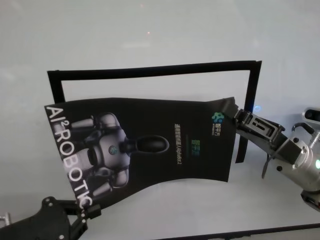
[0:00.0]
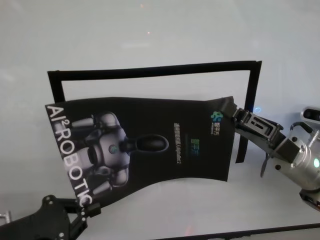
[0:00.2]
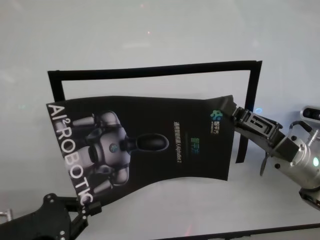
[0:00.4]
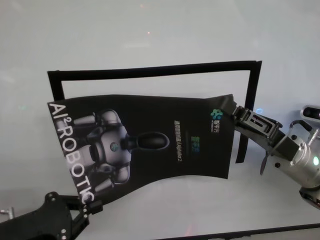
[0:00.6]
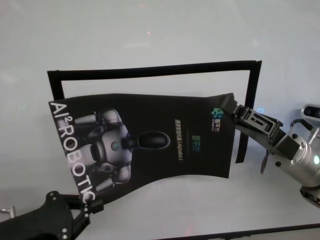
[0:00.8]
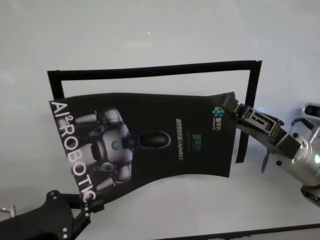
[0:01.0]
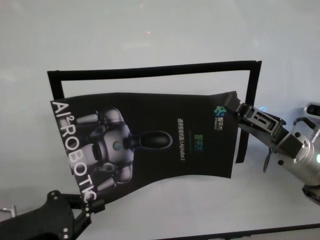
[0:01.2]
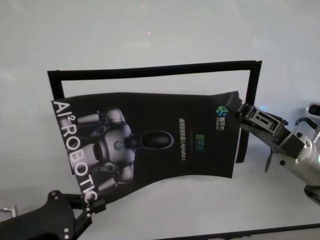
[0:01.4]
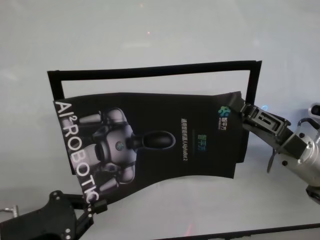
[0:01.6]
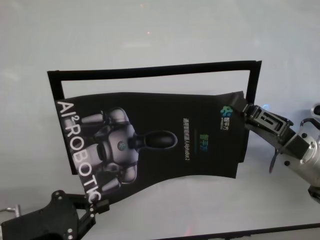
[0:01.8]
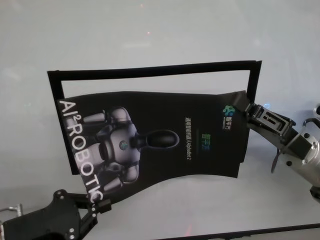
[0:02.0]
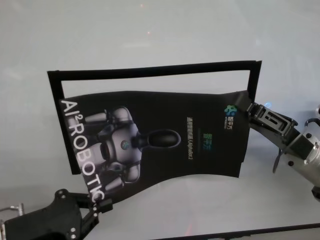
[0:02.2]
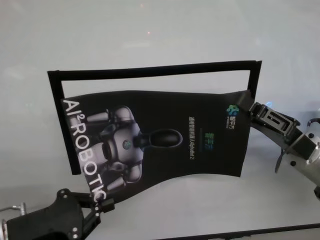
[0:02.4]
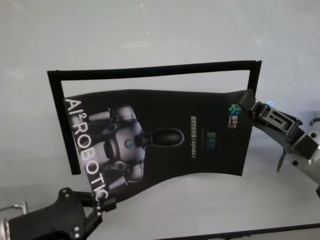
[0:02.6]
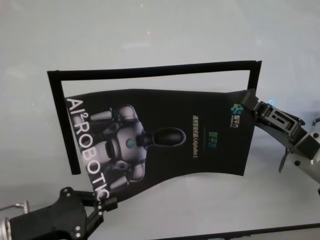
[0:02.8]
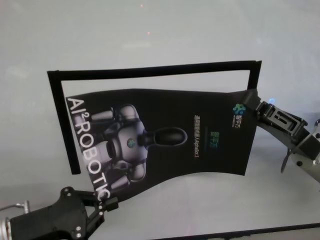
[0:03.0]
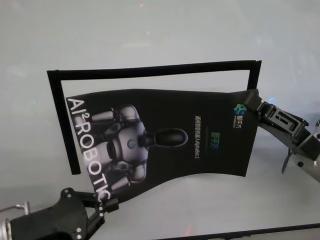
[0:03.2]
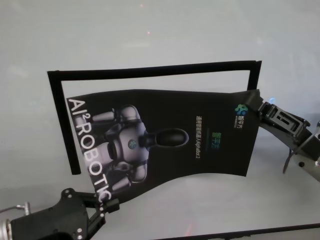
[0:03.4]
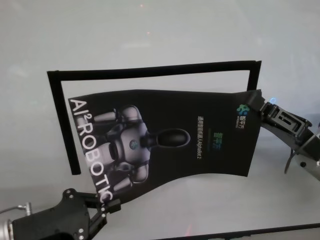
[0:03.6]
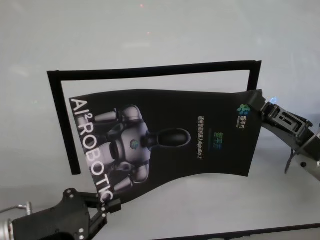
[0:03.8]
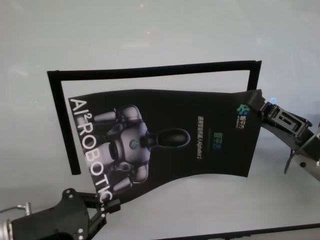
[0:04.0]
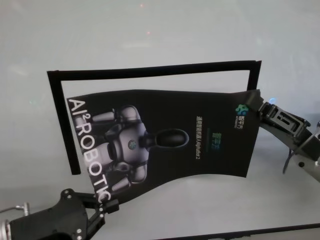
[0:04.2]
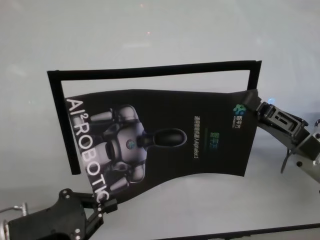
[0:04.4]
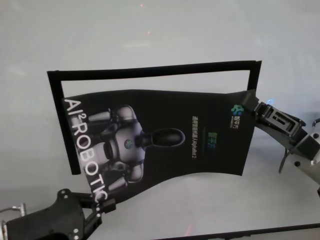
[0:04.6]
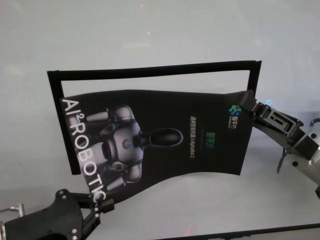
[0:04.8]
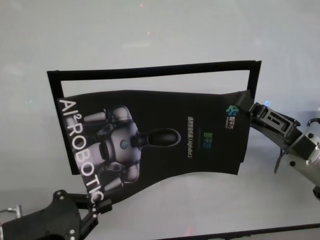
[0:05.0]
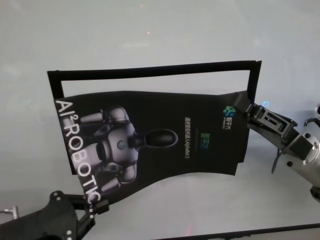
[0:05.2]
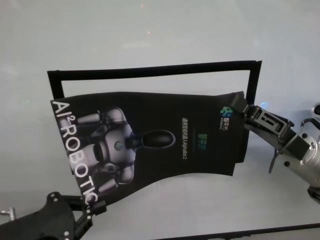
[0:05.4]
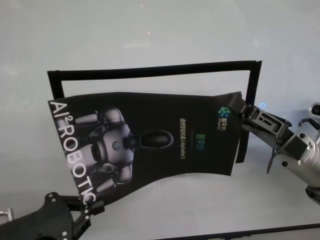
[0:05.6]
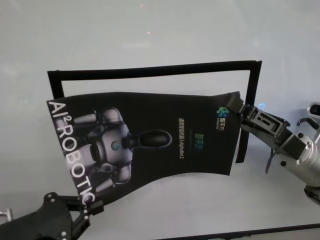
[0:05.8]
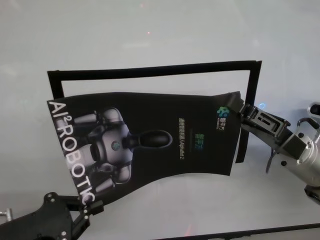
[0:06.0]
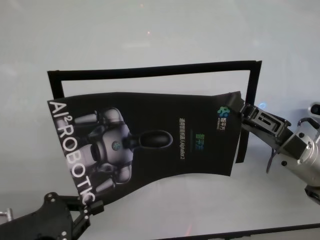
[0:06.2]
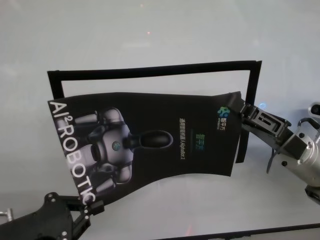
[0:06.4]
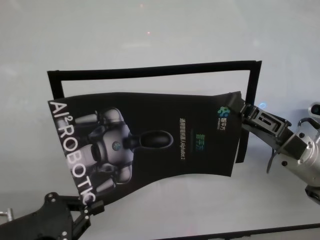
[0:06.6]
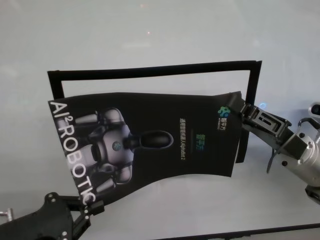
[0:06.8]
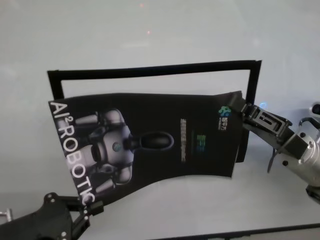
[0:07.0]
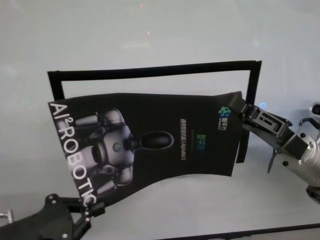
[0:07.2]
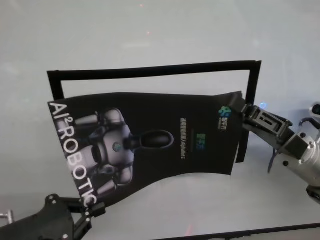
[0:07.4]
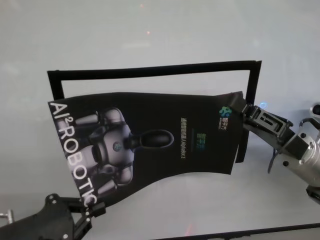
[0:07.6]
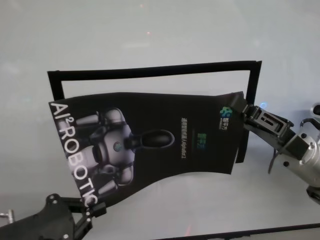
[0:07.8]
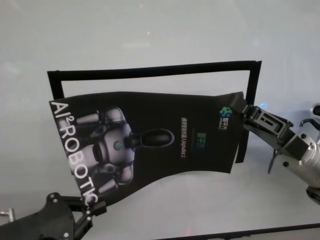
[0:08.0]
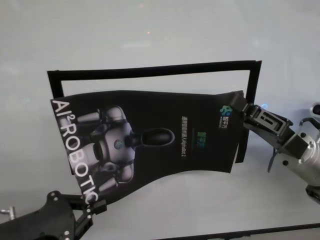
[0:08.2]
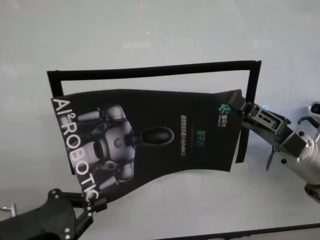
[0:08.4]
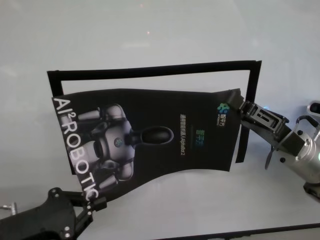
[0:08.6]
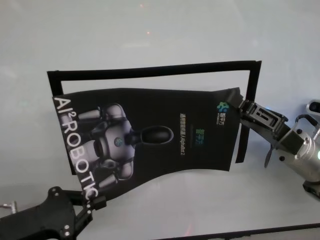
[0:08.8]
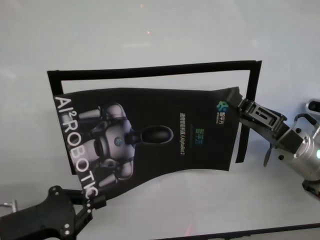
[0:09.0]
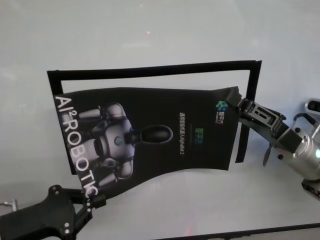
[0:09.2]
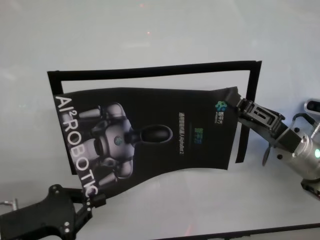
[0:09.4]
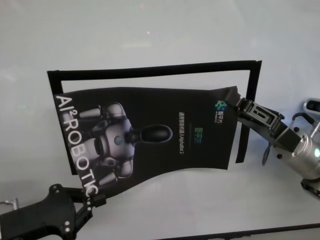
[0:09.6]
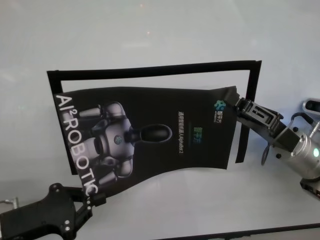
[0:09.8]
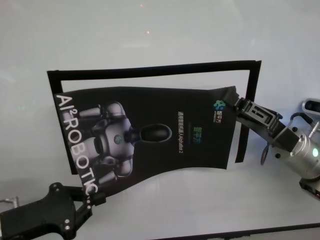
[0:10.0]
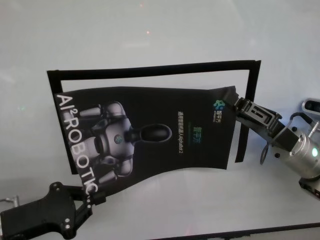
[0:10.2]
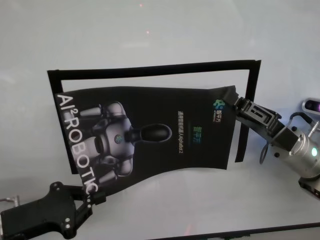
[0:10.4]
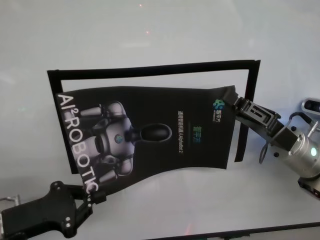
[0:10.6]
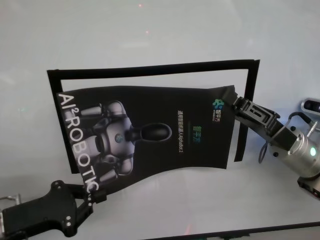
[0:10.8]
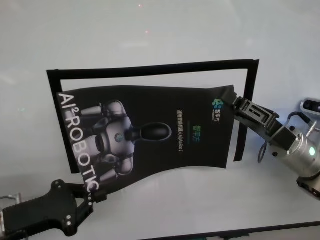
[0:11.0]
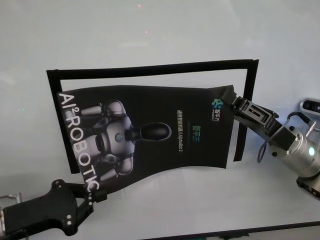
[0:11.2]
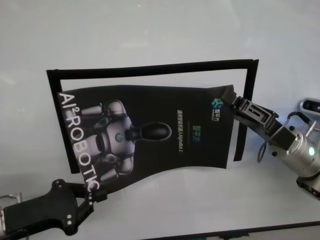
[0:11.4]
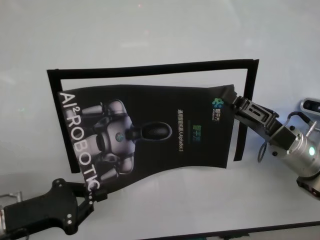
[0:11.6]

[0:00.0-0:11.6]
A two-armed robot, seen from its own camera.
Task of the whole recording: stick the poster on the table by hand.
Step, 0:00.0 to 0:06.6: Stick the advertisement in the top-right corner area with both grippers.

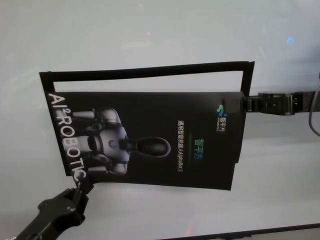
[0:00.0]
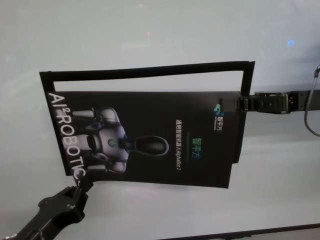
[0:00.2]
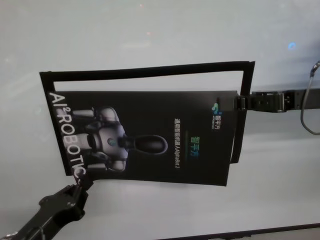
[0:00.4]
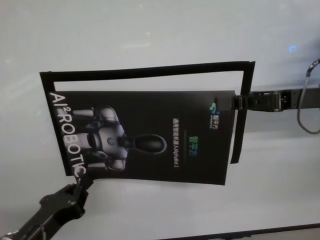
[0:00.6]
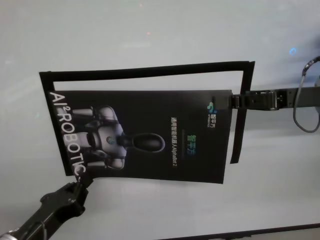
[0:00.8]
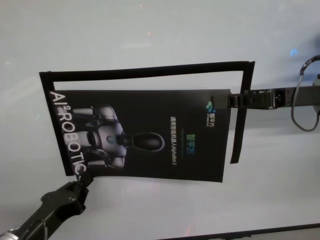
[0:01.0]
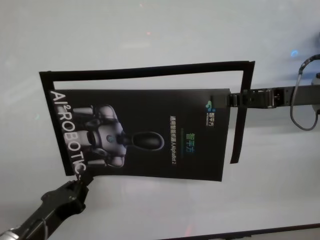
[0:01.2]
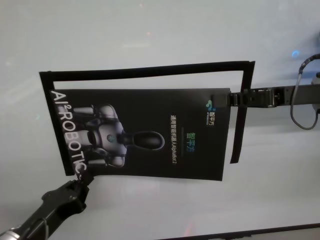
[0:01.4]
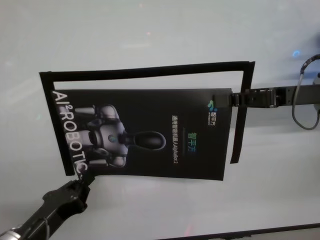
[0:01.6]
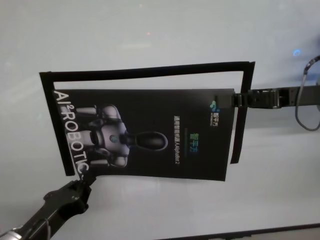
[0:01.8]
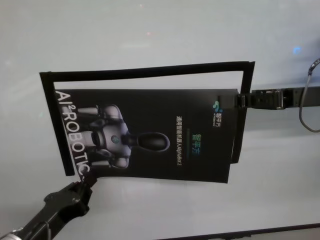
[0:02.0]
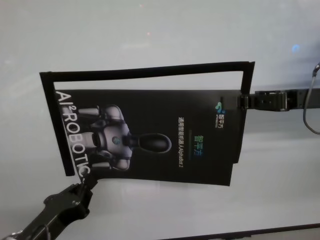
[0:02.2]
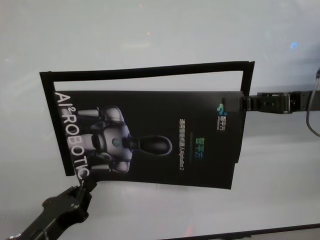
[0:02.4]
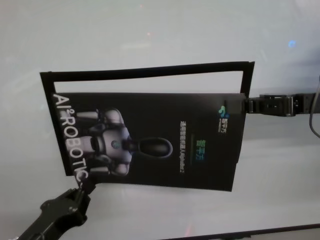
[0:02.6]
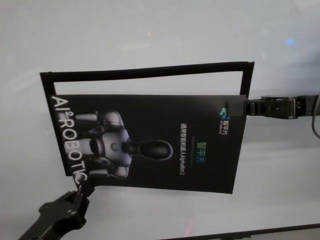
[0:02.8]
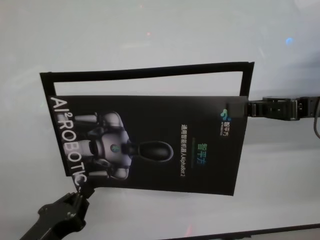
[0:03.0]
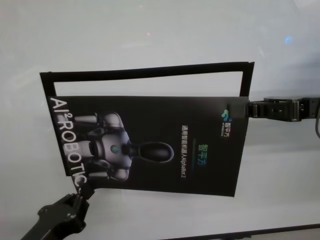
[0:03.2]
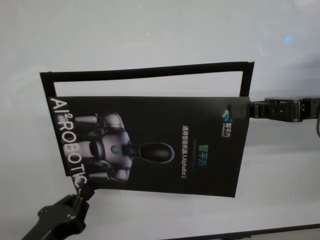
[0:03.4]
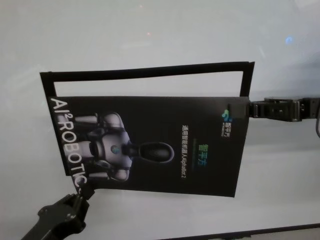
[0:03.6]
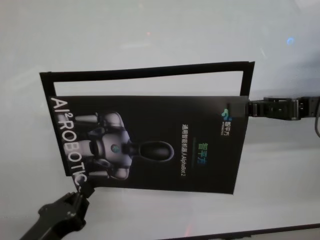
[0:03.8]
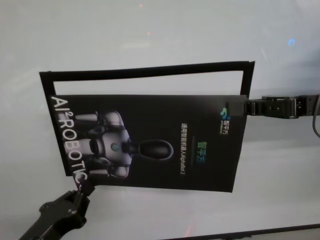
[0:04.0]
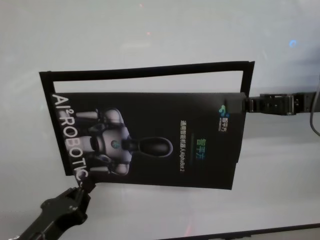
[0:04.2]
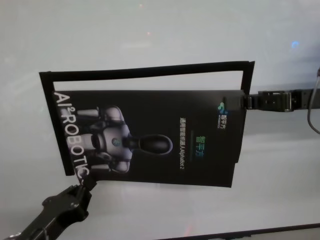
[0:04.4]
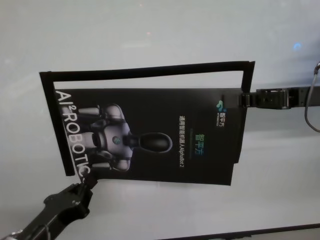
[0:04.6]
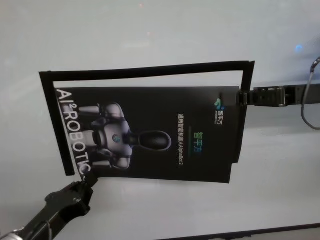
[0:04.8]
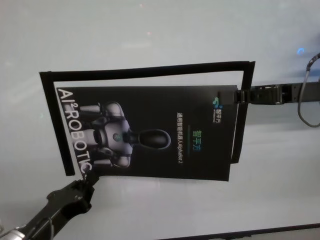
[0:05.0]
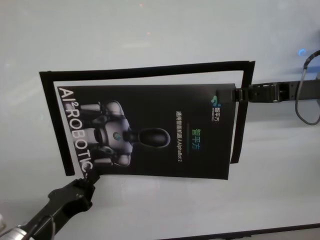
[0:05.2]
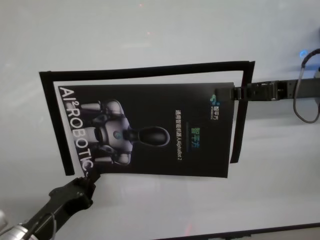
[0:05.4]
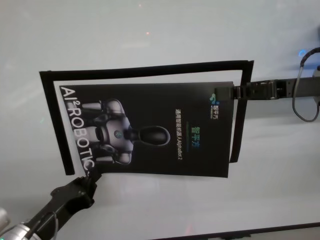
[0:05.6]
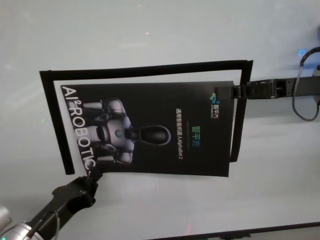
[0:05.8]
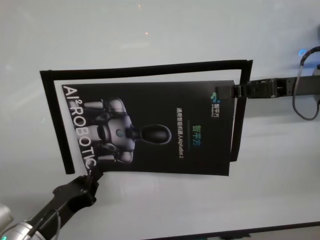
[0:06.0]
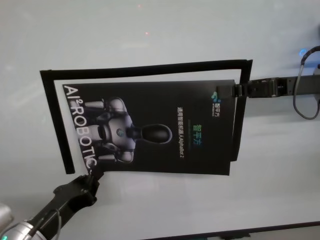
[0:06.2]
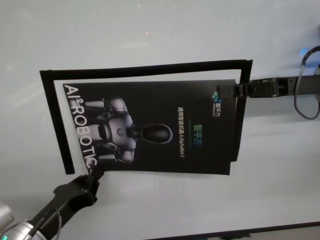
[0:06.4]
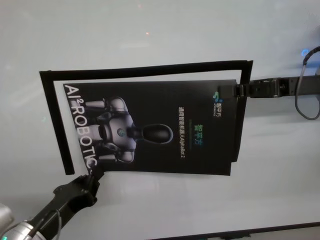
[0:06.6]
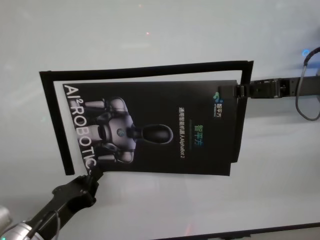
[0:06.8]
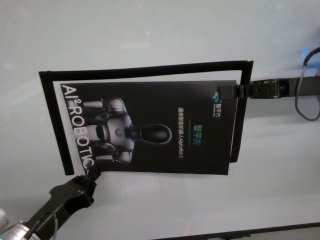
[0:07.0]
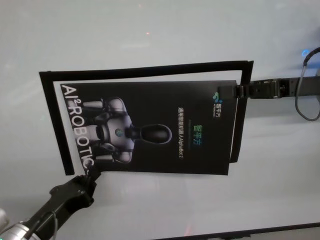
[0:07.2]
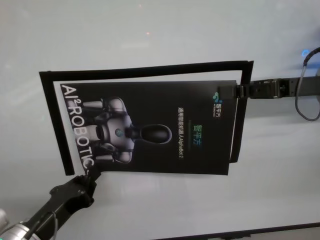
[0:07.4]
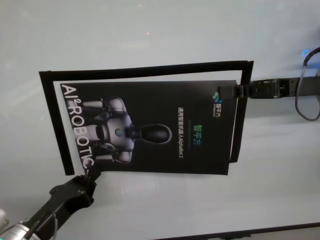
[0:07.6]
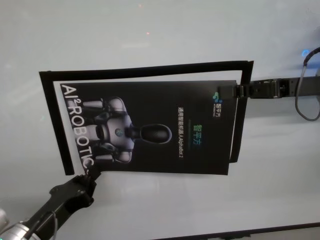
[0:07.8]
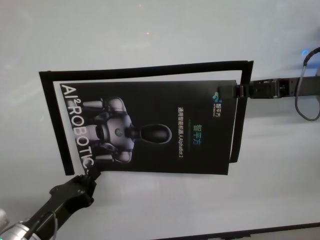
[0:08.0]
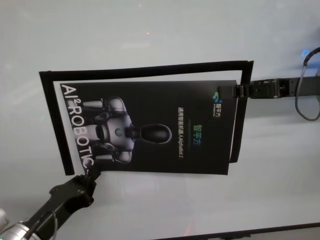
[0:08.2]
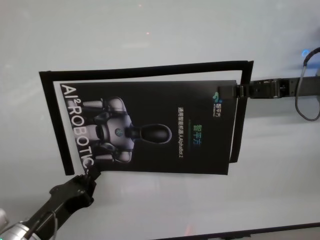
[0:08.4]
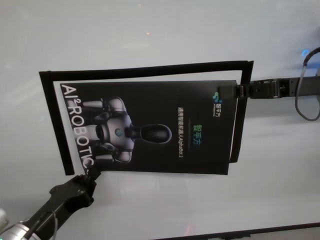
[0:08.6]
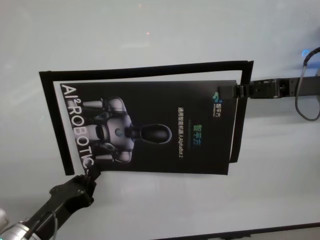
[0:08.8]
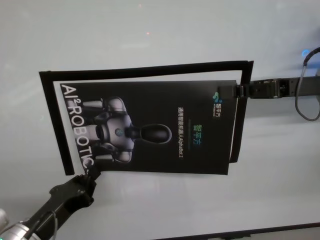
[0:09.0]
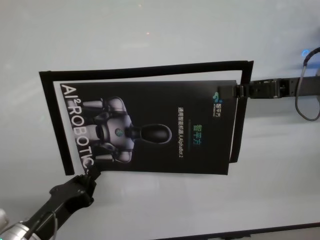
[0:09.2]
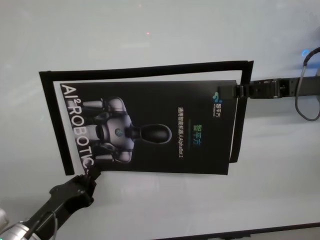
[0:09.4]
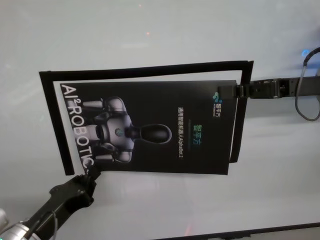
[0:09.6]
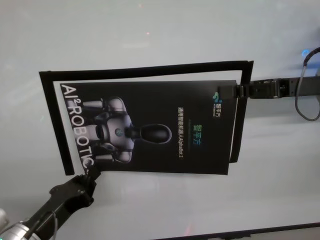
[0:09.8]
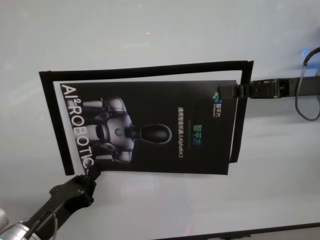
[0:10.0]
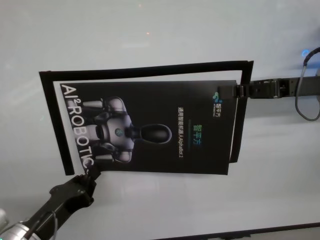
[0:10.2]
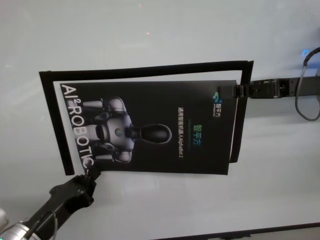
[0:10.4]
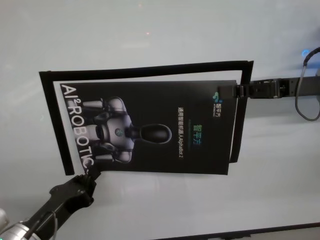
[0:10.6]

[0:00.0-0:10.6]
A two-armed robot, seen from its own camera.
Task of the whole recording: stick the poster on the table by hand.
Step, 0:00.0 to 0:06.0: Stick the advertisement in the top-right corner area with both grippers.

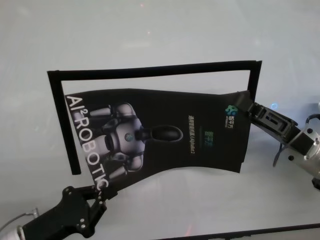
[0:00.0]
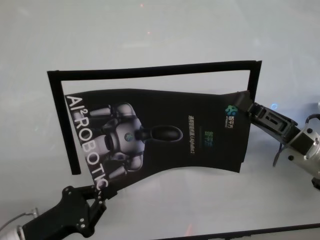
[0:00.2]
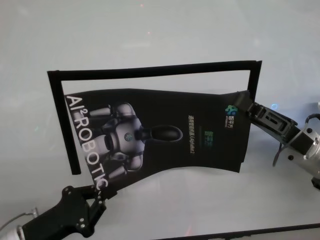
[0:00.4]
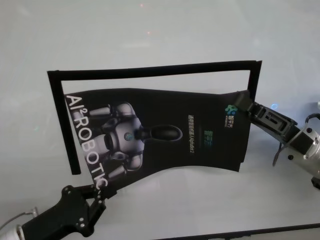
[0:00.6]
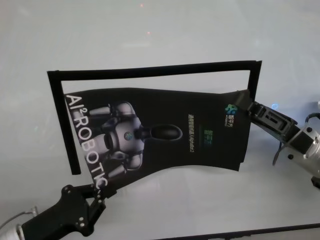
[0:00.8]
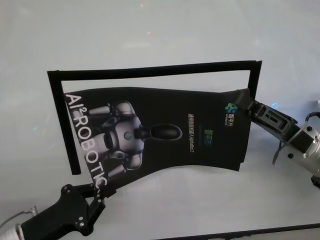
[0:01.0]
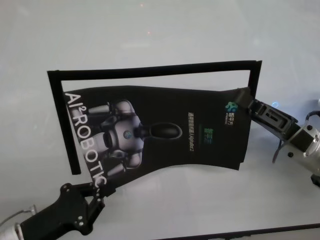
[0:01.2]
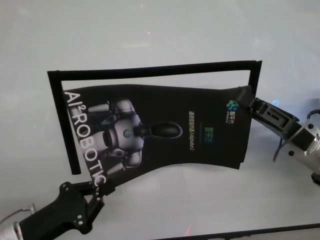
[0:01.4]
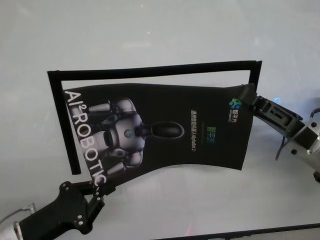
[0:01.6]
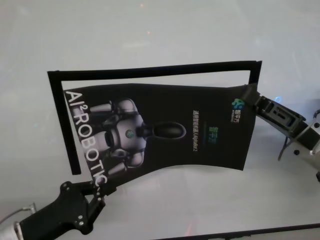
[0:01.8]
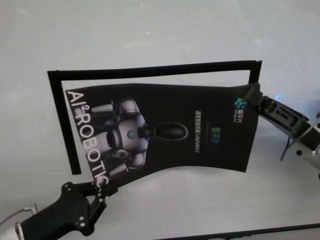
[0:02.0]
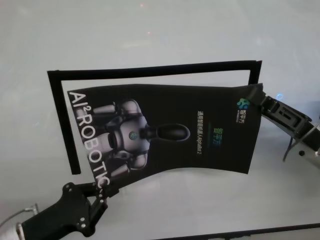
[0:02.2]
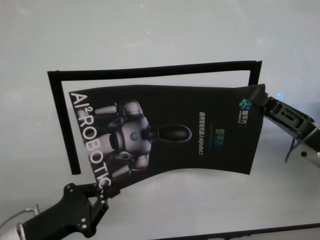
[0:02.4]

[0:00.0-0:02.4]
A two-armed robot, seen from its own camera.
Task of the whole recording: stick the poster on the table by hand.
Step, 0:00.0 to 0:02.2: Stick the advertisement in the top-right corner area with both grippers.
